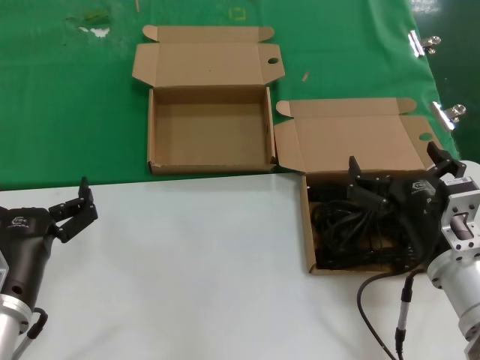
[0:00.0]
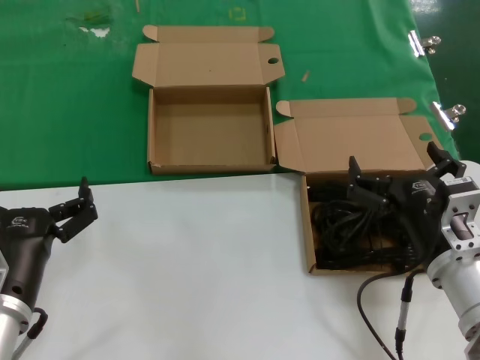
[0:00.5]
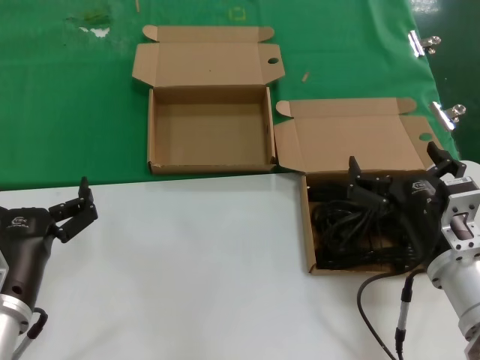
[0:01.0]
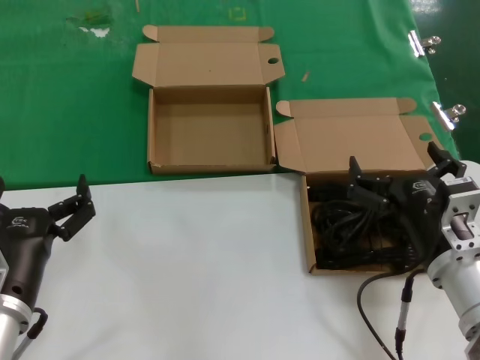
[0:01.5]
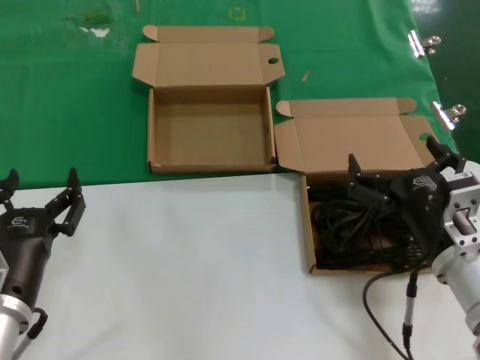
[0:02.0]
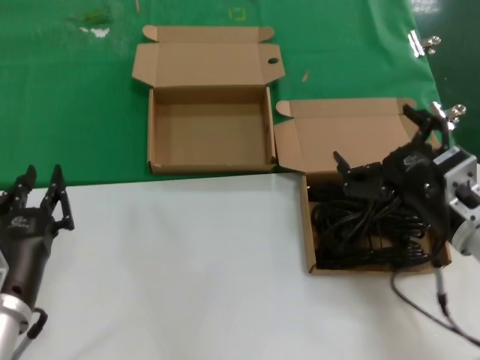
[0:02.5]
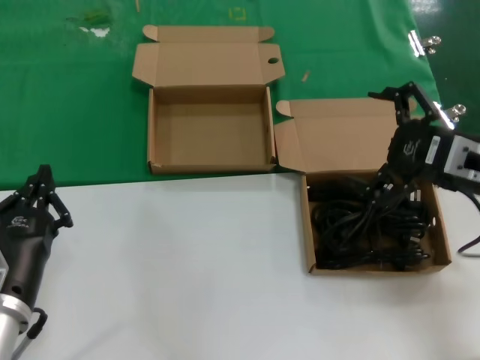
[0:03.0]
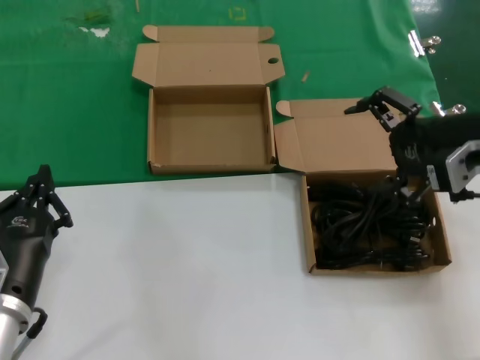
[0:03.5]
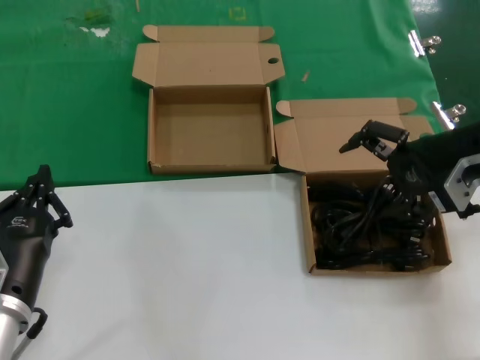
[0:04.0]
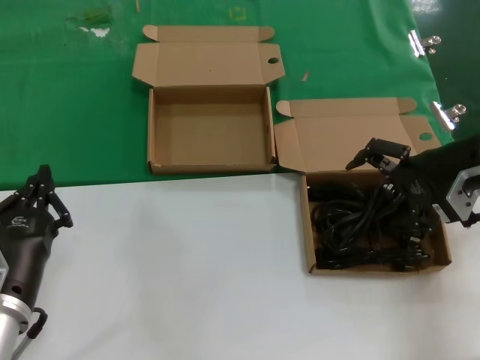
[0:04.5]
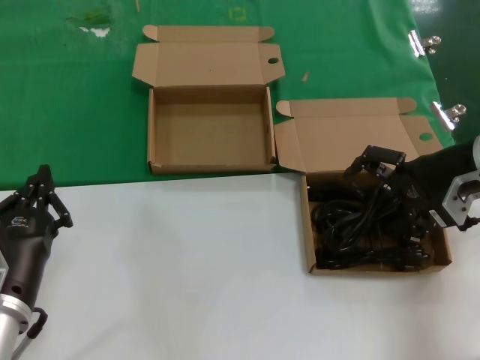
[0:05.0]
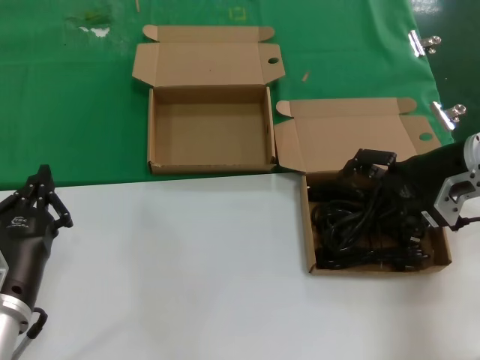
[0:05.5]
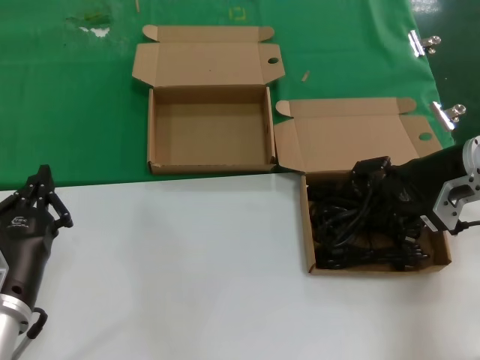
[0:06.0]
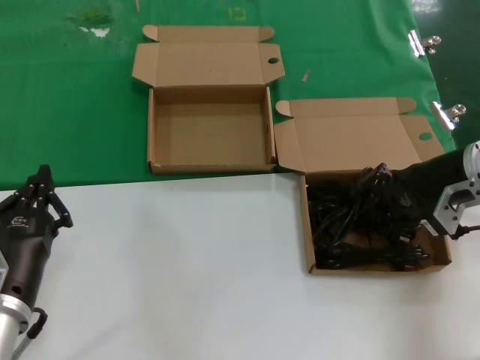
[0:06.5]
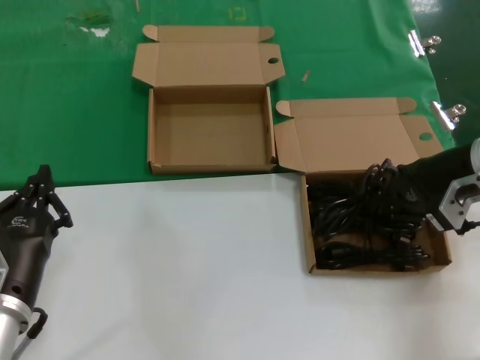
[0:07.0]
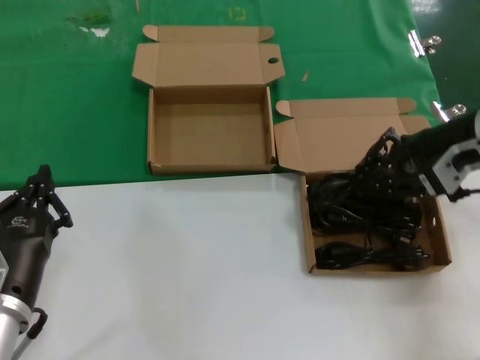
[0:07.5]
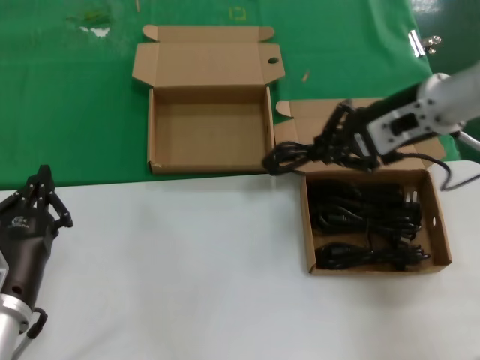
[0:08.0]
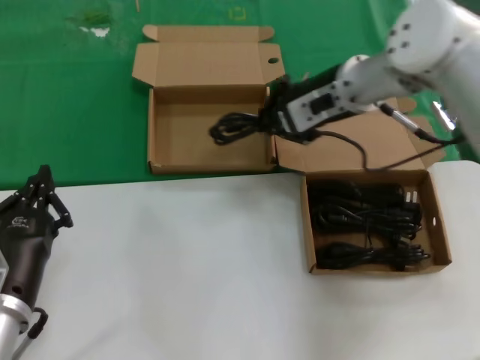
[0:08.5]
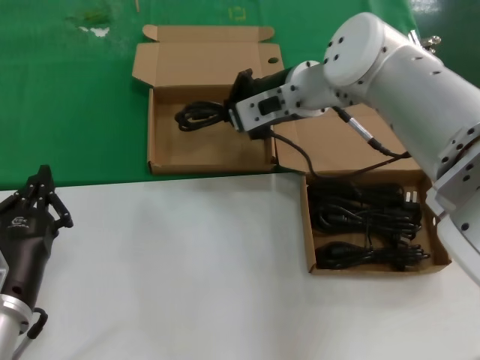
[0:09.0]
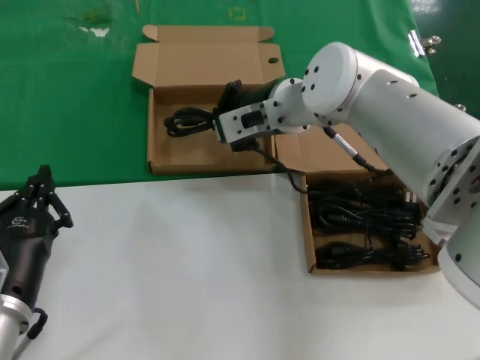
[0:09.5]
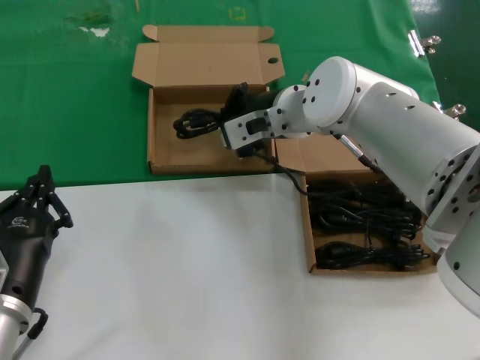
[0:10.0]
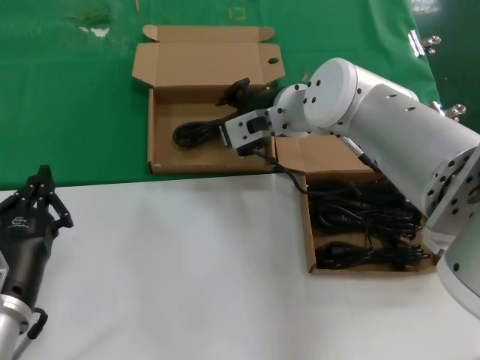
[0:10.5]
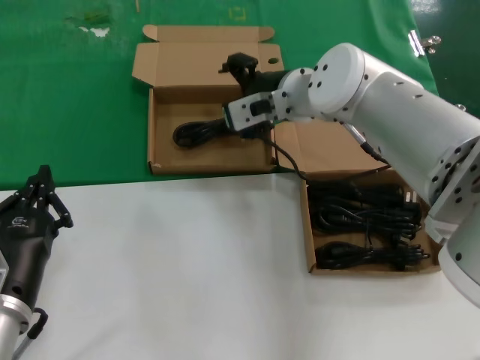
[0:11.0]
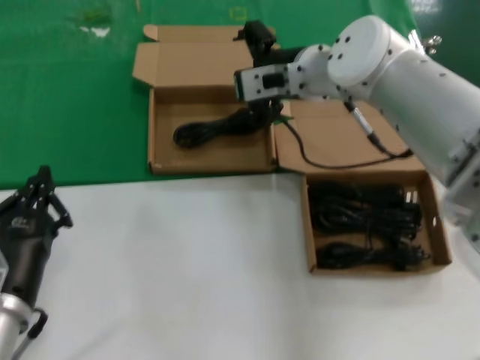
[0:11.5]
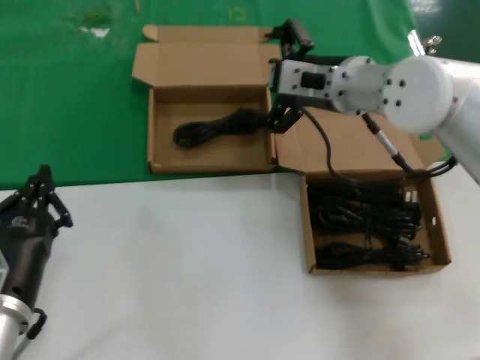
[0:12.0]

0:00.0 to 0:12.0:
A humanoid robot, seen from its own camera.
Task of the whole recording: take the parts from the box containing them and put them into an empty box.
Step, 0:00.0 to 0:06.0: Grasp the data cable.
Step, 0:06.5 to 0:10.0: Place the data cable in the another box.
0:00.0 to 0:02.0: Both hands stay about where they are.
0:02.0 to 0:04.0: The right hand shifts approximately 25 cm upward, forward and to the right.
0:04.0 to 0:06.0: The right hand moves downward, some 5 cm.
0:06.0 to 0:08.0: The right hand goes roughly 10 cm upward and to the left.
0:08.0 to 0:10.0: The right hand heads to the left, covering roughly 15 cm.
0:10.0 to 0:12.0: The right hand moves to the right, roughly 5 cm.

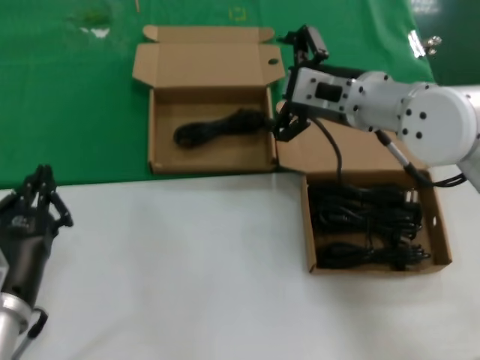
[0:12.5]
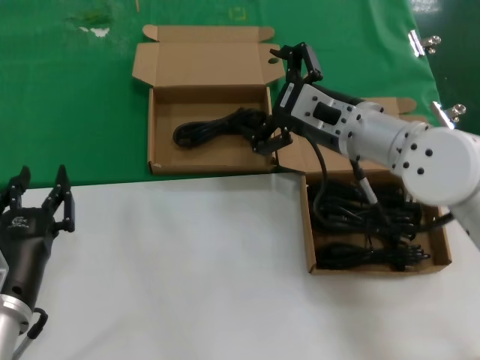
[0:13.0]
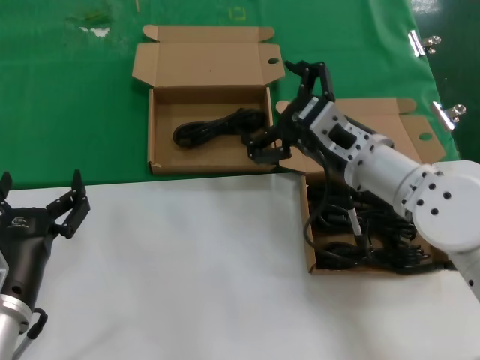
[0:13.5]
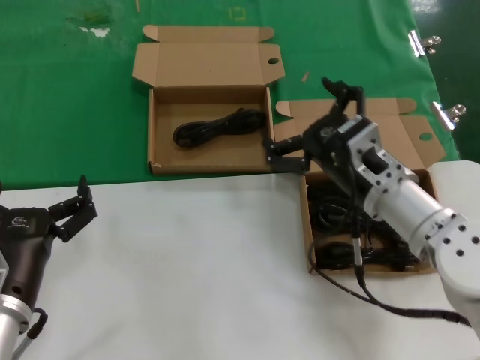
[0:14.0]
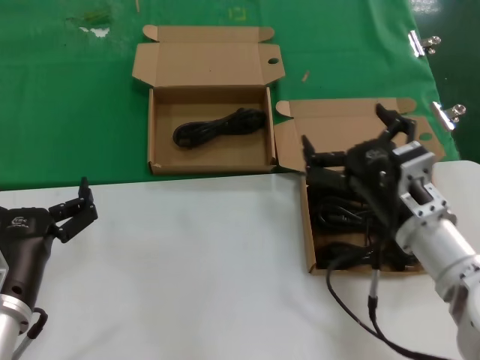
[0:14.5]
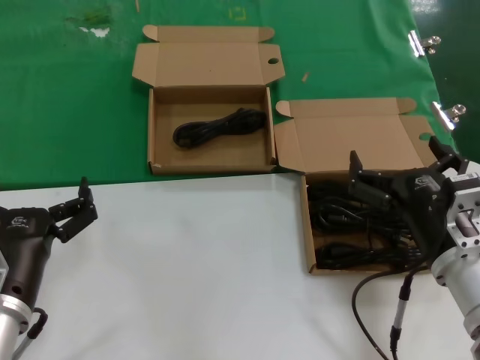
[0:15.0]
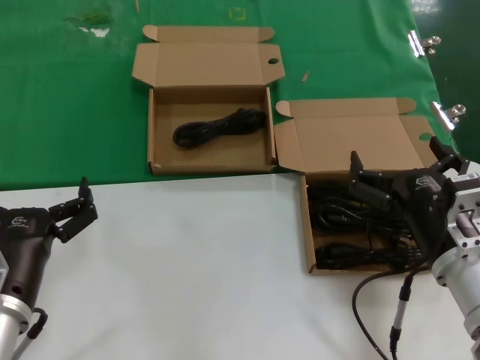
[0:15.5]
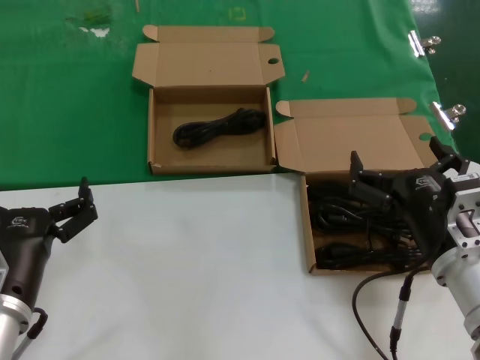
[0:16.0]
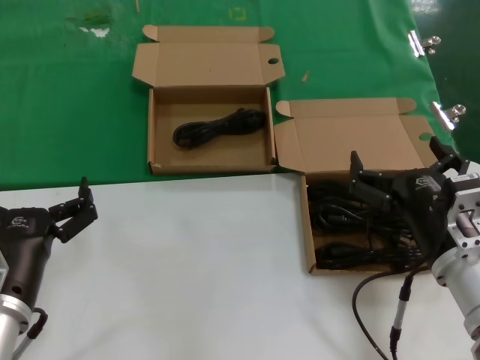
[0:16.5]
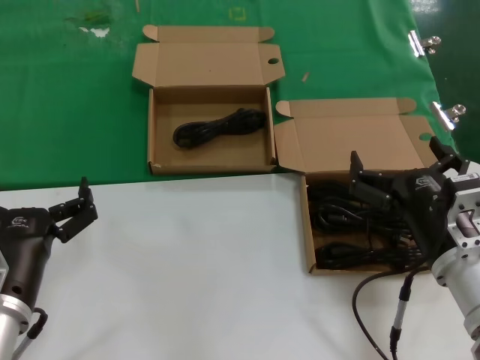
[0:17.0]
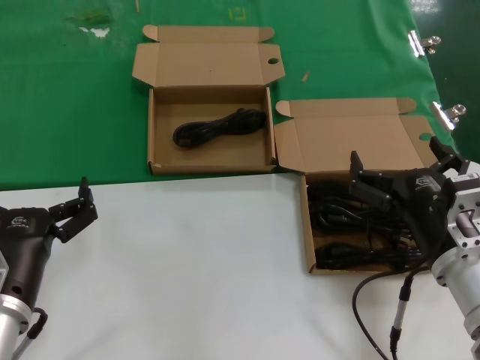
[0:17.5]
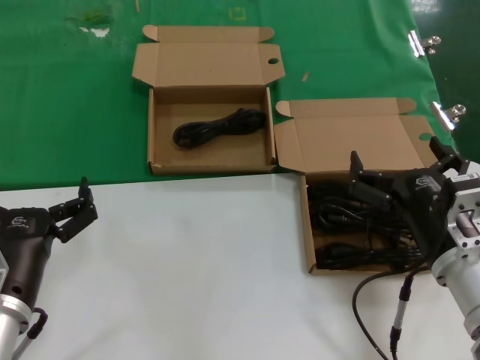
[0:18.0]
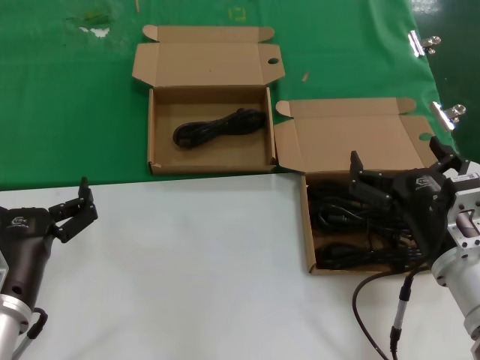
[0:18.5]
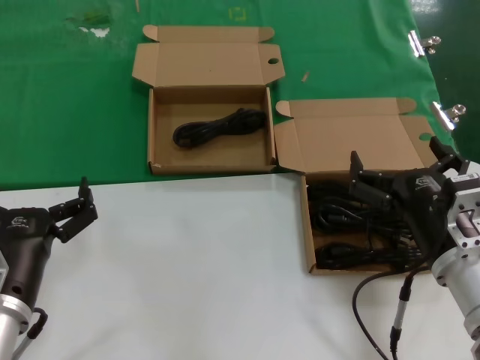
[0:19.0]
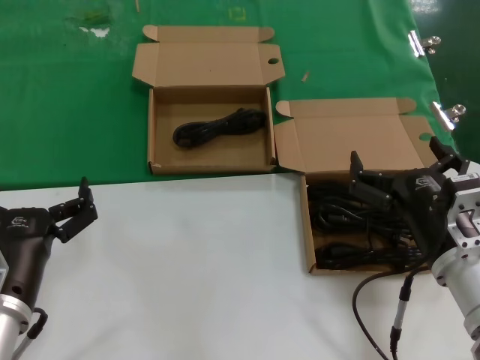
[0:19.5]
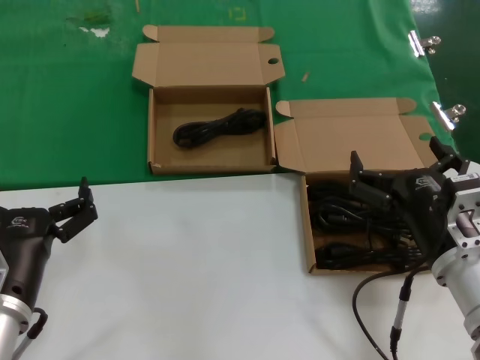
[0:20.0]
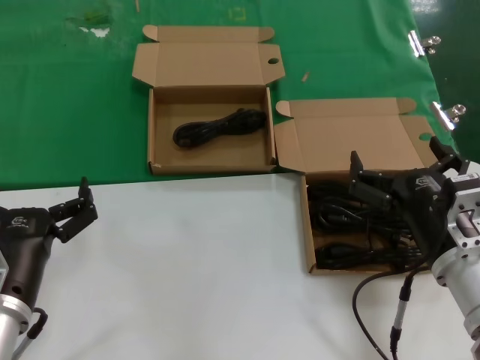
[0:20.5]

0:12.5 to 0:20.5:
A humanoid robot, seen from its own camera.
Task of the whole recording: take the parts from the box containing them and put them into an empty box.
0:12.5 to 0:14.5: The right hand is displaced backward and downward by approximately 20 cm.
0:14.5 to 0:16.5: The right hand ends up about 5 cm from where it was.
0:16.5 to 0:20.5: Neither hand changes place.
